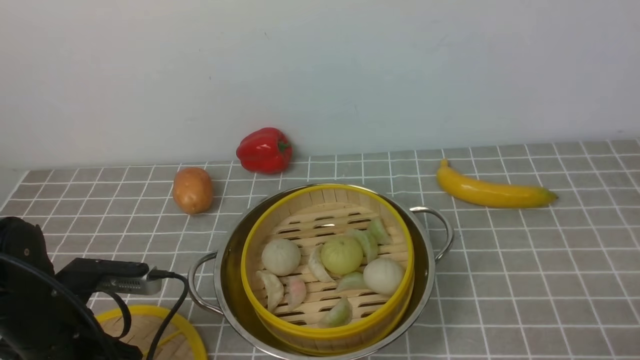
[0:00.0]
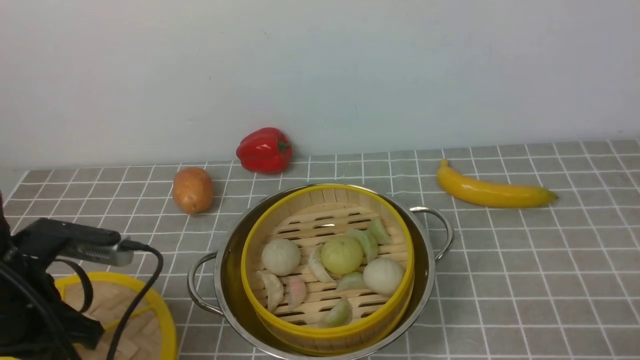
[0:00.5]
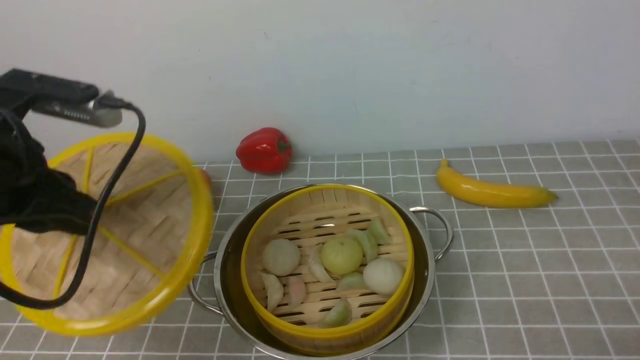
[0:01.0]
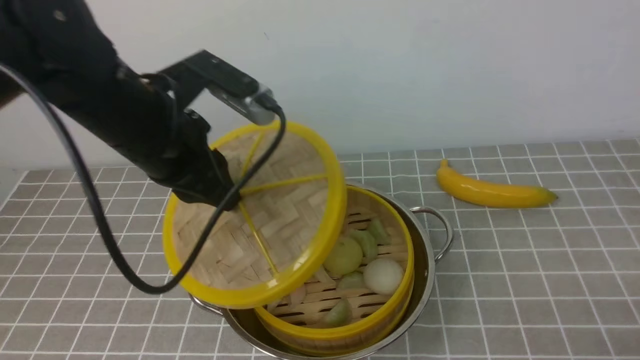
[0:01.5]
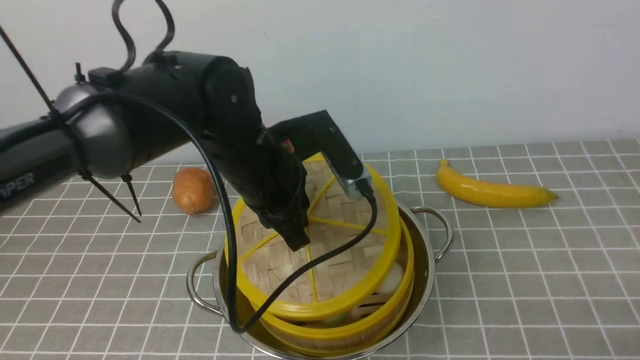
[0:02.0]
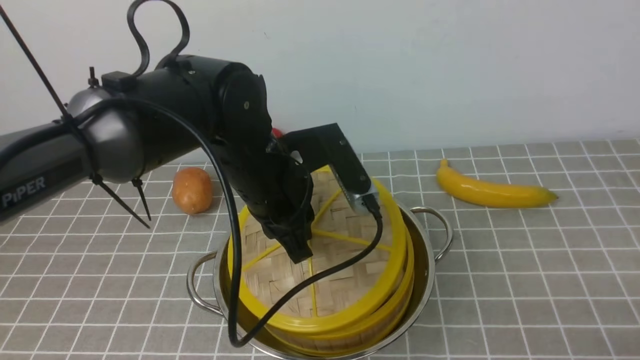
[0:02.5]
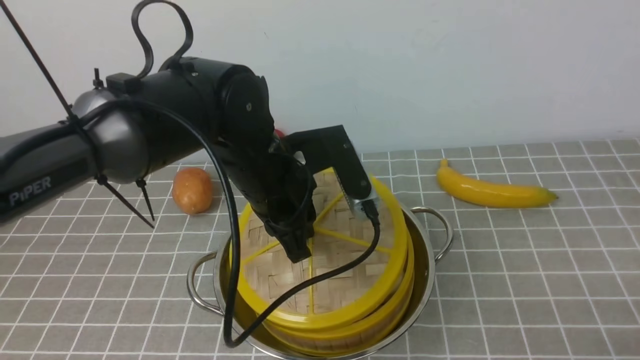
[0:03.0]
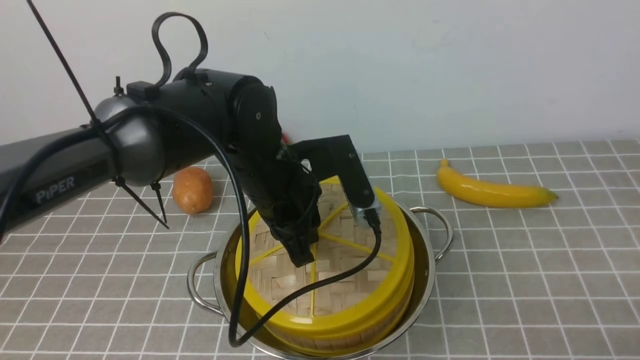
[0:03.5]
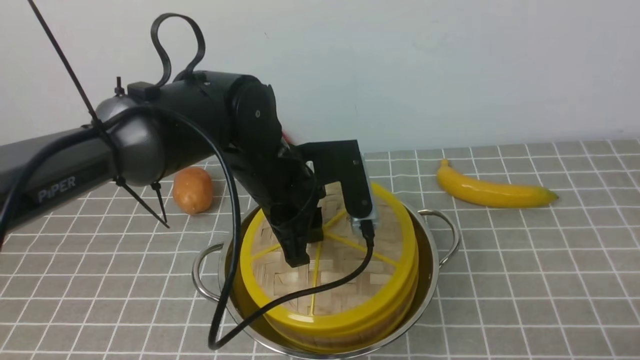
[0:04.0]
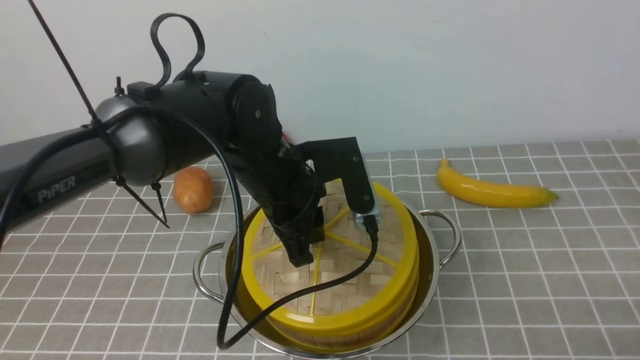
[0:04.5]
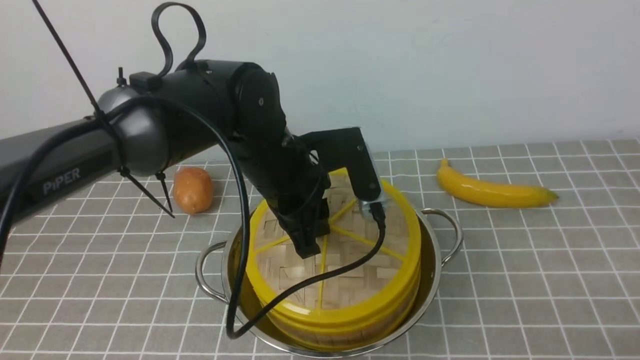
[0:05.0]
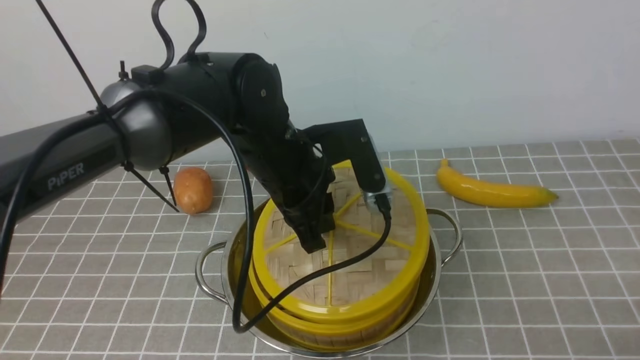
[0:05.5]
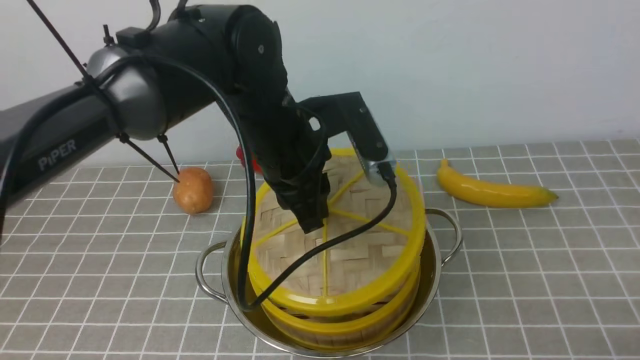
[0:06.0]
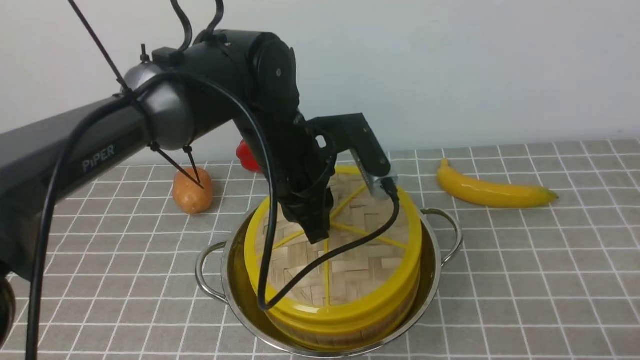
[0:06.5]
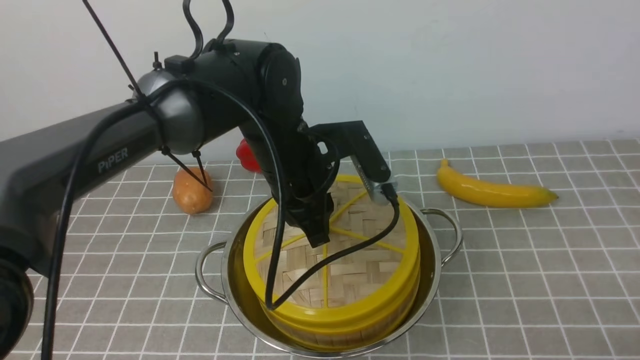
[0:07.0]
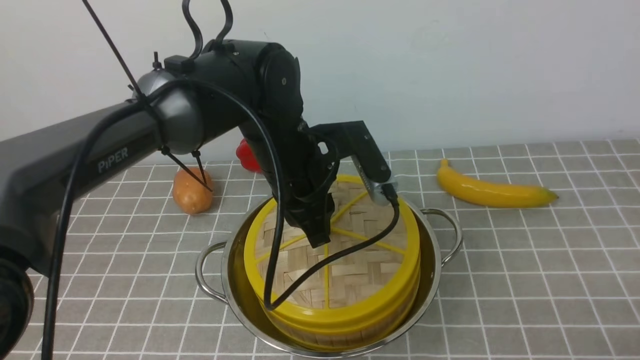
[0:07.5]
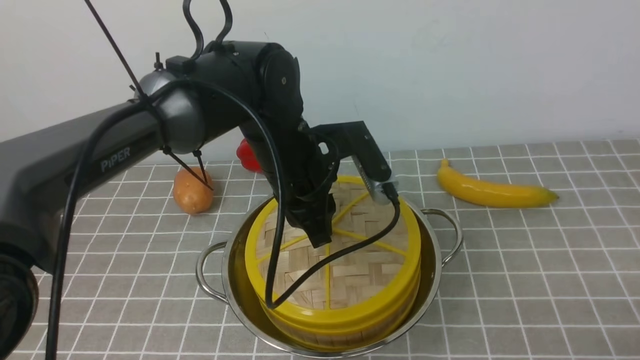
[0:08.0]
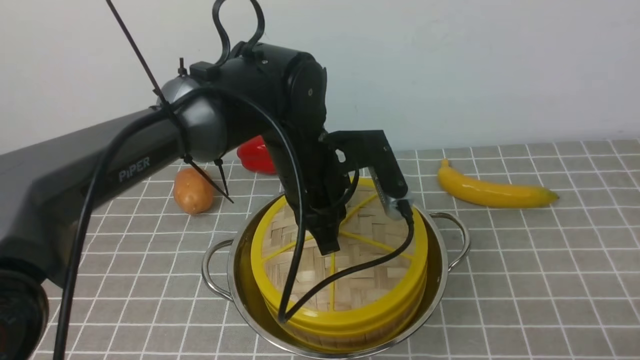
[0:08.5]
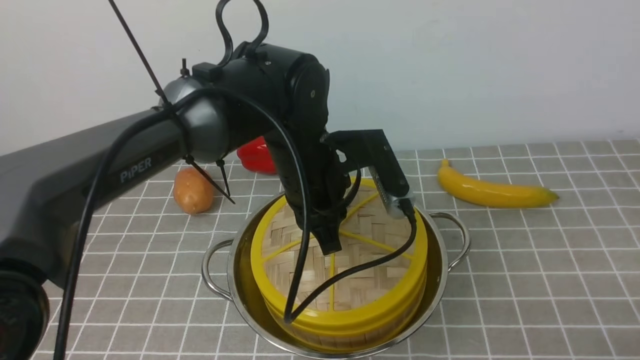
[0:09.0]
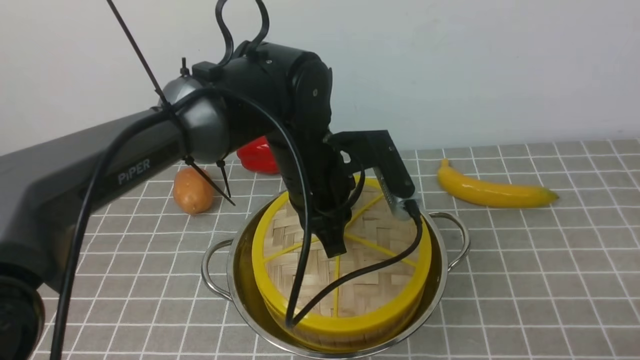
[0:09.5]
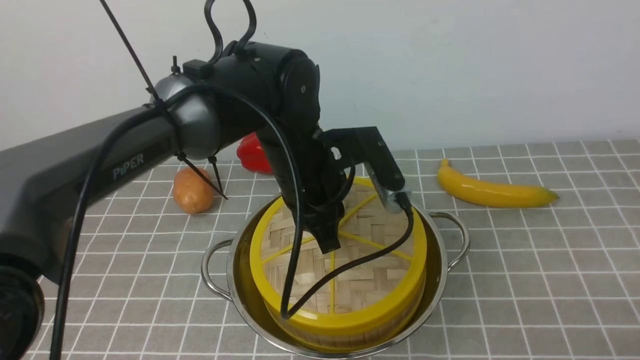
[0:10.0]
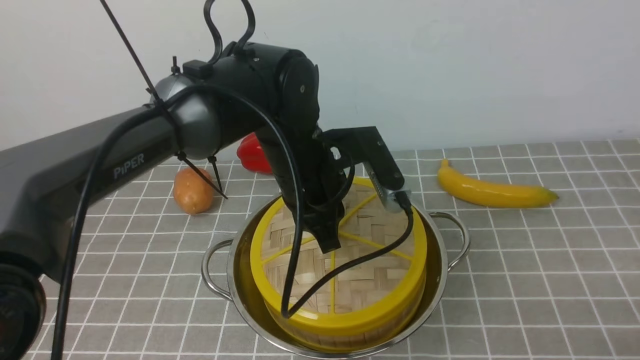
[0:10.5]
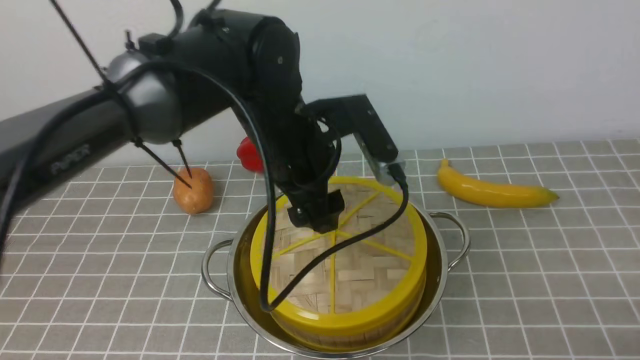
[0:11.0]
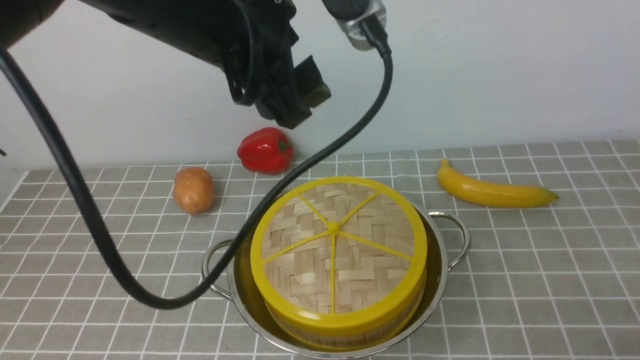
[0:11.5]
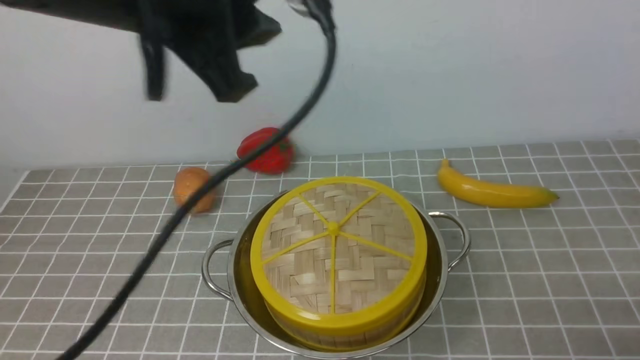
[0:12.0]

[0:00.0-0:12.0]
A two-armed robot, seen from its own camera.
Task of the whole recording: place the steamer in the pot on the grey tablecloth, and put the lid on the steamer.
Step, 0:01.0 to 0:11.0: use the left arm to place the steamer lid on the steamer.
0:00.0 to 0:02.0: The left gripper heads to the right, forward and upward, covering roughly 25 cm.
0:02.0 to 0:04.0: The grippers make only small movements.
0:08.0 to 0:10.0: The grippers stay close to where they were, moving slightly.
0:10.0 to 0:12.0: The left gripper goes some 30 cm upward, backward and to the left, and opens up.

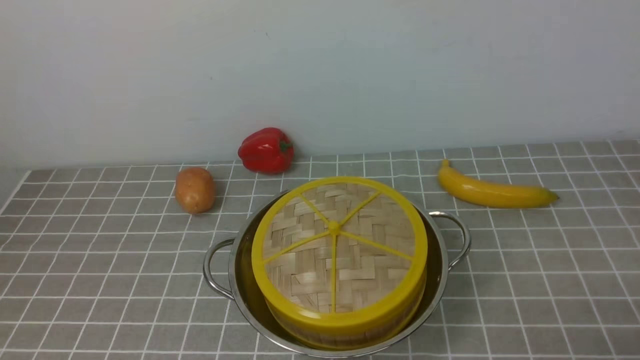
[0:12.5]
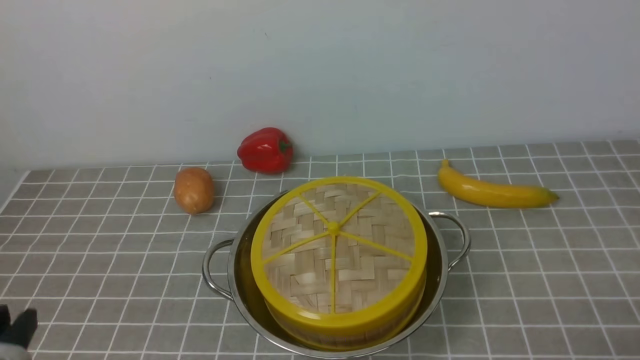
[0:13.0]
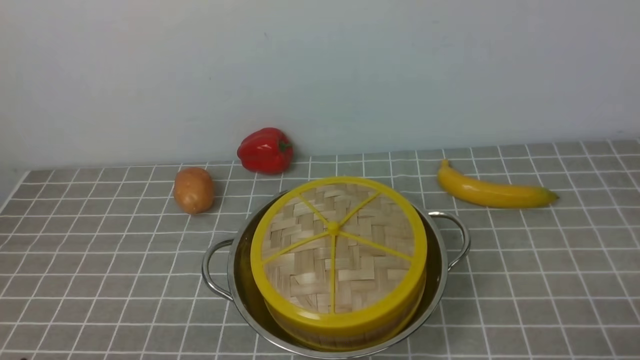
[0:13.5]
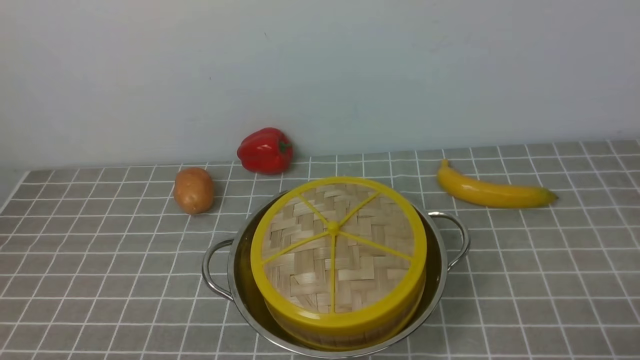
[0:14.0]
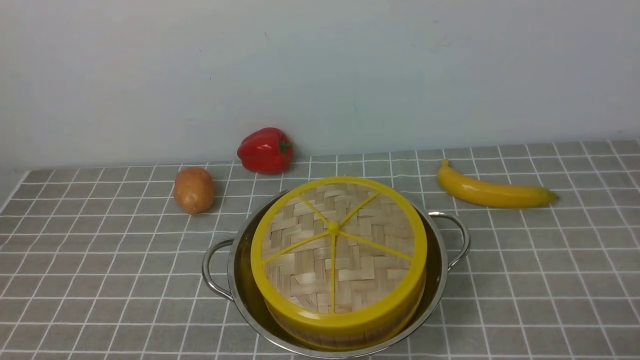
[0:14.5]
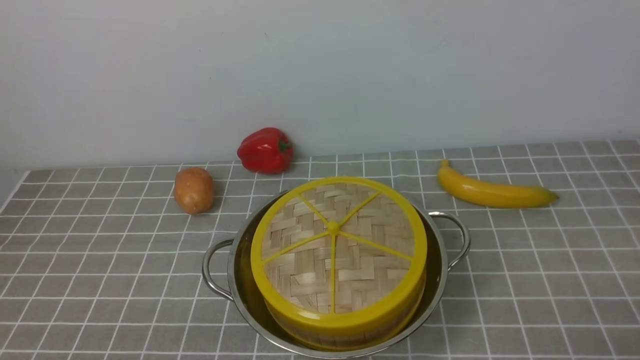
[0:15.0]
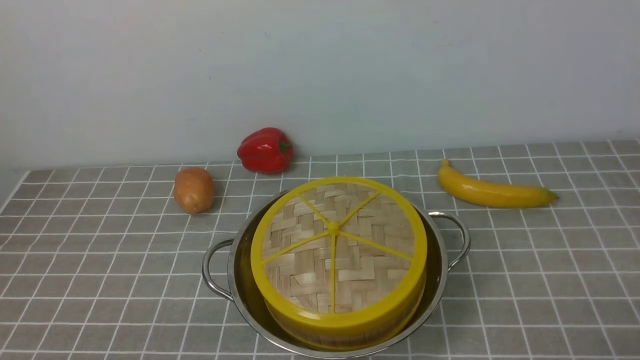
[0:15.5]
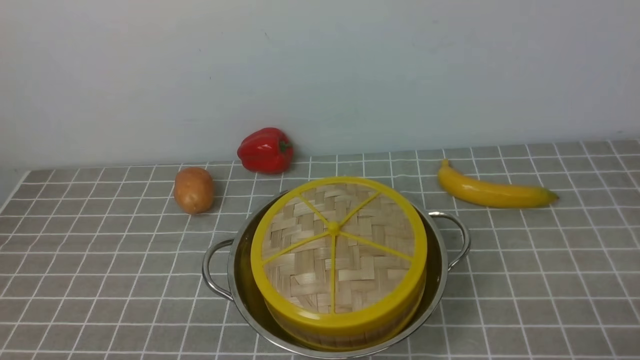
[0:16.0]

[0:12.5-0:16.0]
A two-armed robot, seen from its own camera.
Task of the whole recording: place the steamer in the pot on the grey tablecloth, and put the lid on the steamer.
0:14.5 to 0:16.0: Neither gripper changes place.
